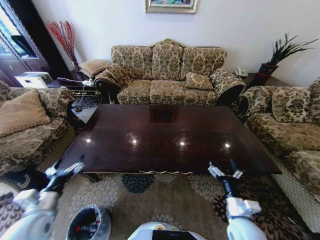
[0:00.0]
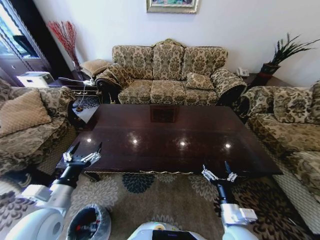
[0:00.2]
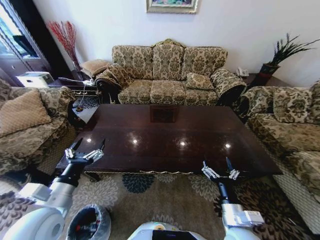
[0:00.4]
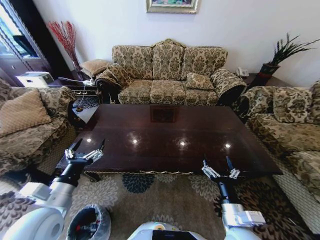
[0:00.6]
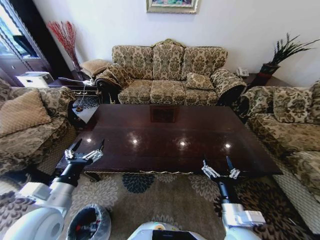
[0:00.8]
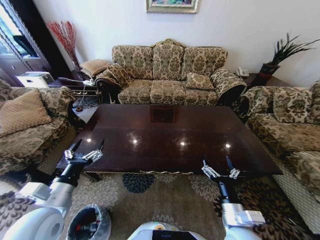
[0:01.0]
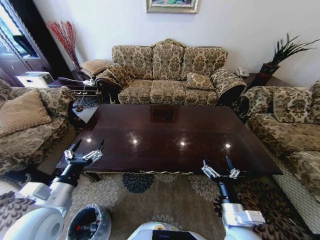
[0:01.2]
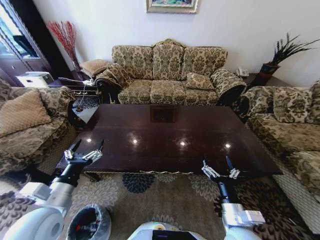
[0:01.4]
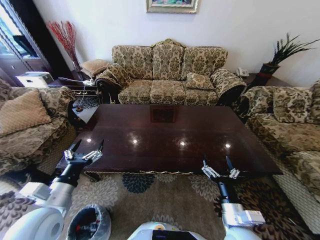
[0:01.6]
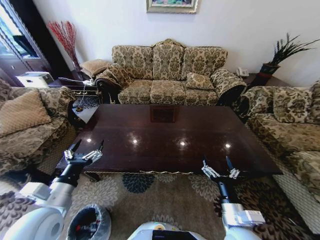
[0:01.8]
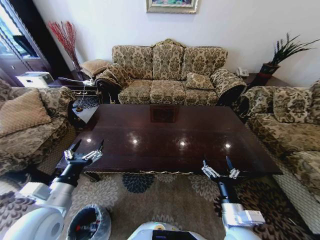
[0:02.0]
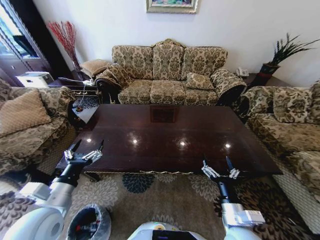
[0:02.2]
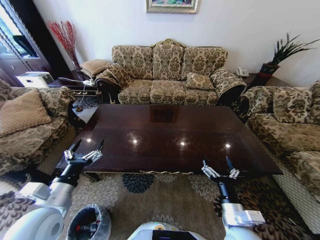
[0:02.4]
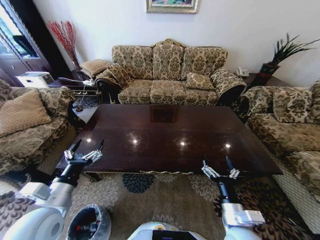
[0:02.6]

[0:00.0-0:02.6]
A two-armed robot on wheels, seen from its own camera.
Task of the whole recording: Move to the front of the table and place the trash on the table into the trash bin.
0:00.0 to 0:01.2: The right gripper moves approximately 5 cm, while the left gripper shifts approximately 10 cm to the right and upward.
0:01.2 to 0:02.6: The two grippers keep their place.

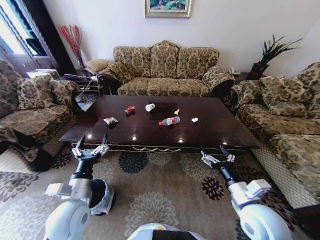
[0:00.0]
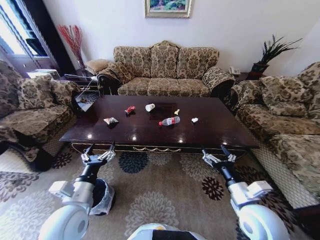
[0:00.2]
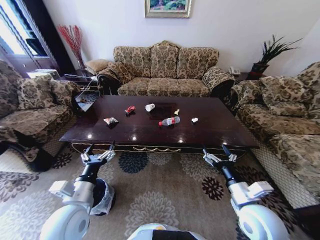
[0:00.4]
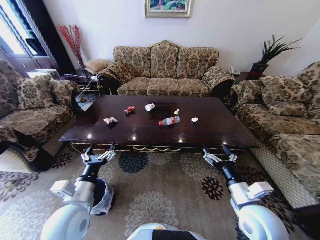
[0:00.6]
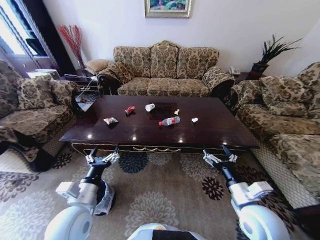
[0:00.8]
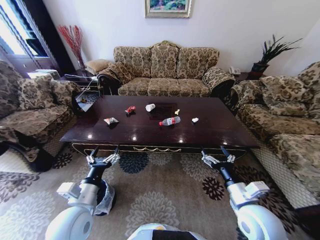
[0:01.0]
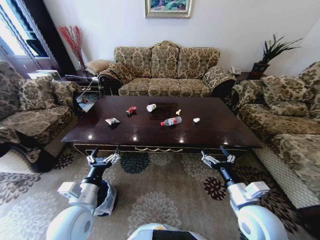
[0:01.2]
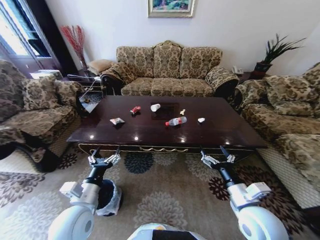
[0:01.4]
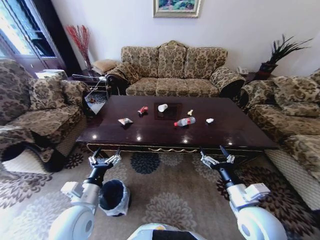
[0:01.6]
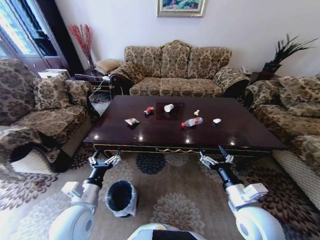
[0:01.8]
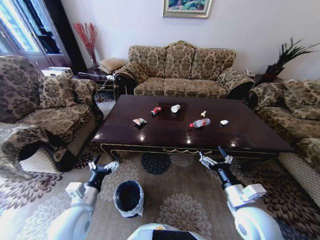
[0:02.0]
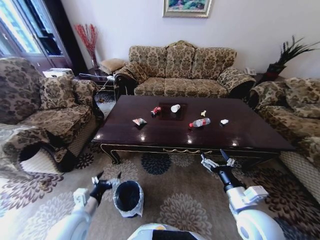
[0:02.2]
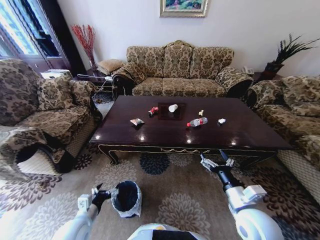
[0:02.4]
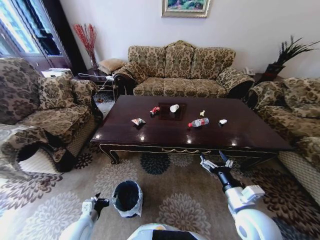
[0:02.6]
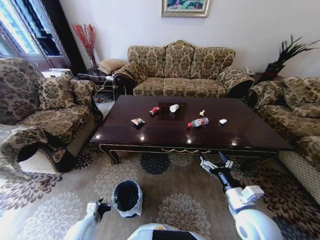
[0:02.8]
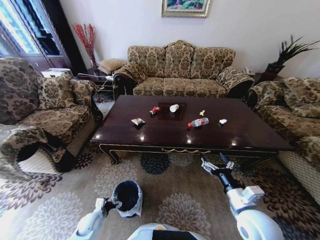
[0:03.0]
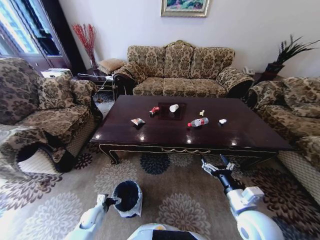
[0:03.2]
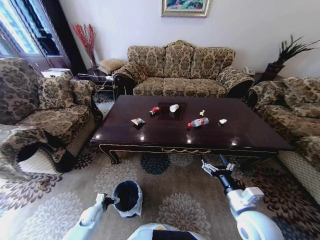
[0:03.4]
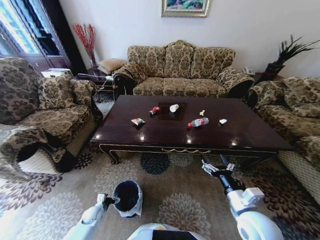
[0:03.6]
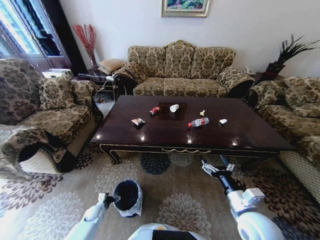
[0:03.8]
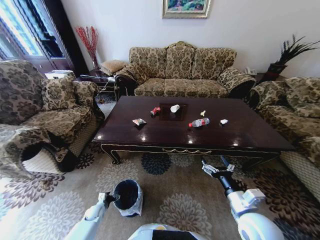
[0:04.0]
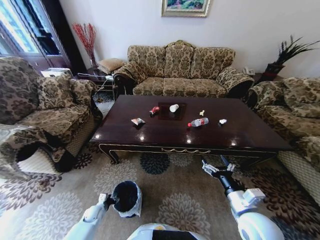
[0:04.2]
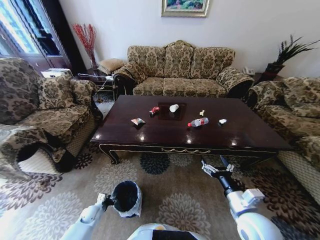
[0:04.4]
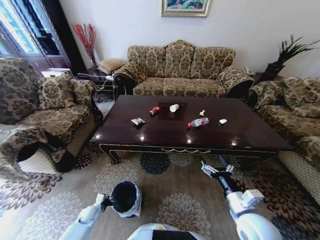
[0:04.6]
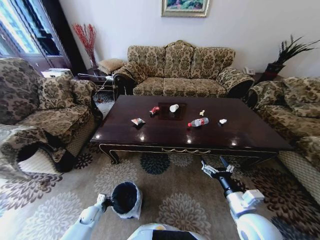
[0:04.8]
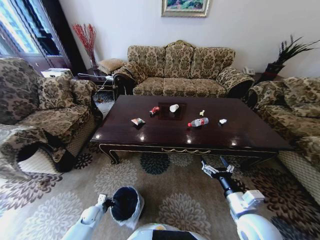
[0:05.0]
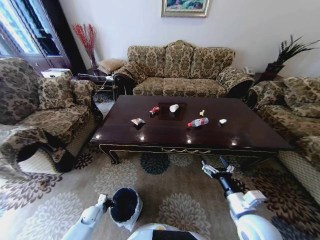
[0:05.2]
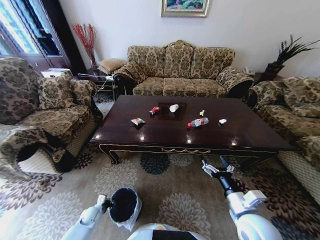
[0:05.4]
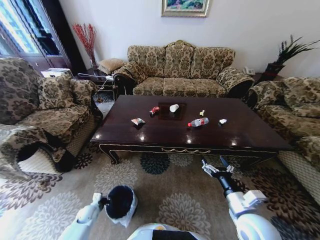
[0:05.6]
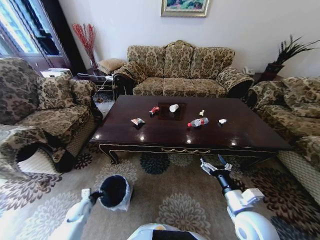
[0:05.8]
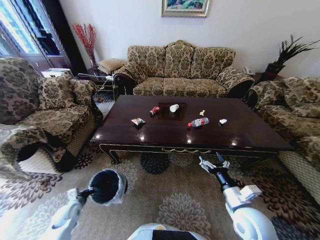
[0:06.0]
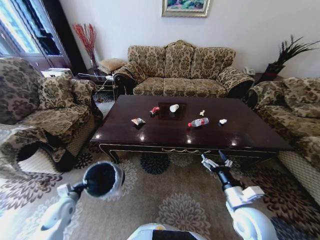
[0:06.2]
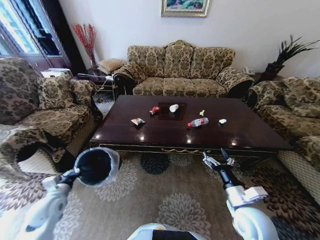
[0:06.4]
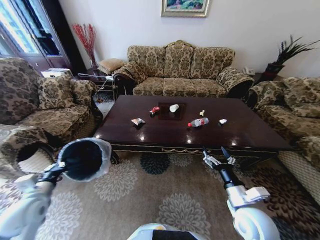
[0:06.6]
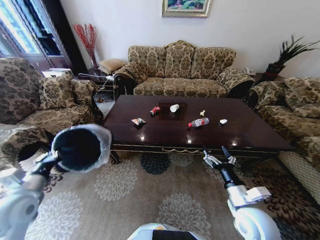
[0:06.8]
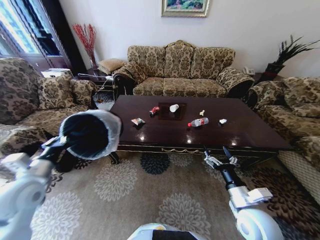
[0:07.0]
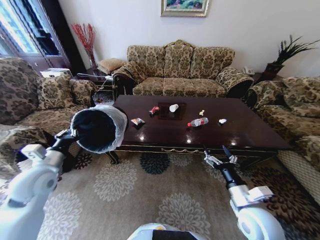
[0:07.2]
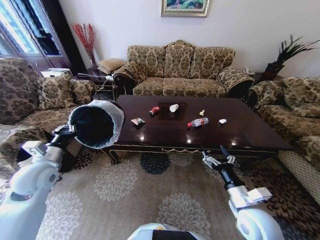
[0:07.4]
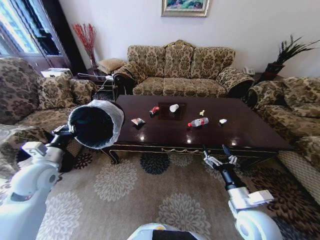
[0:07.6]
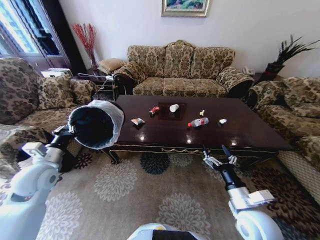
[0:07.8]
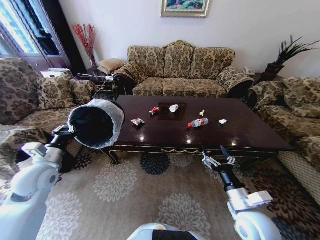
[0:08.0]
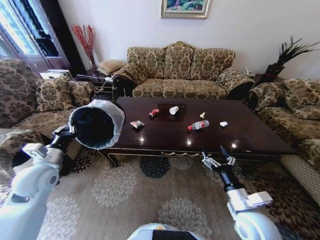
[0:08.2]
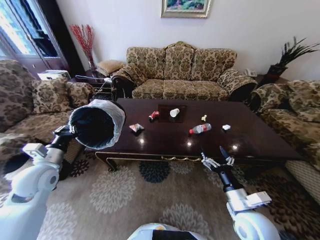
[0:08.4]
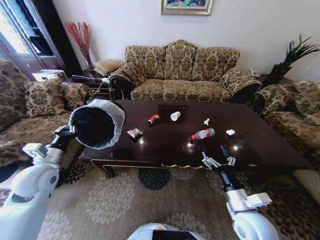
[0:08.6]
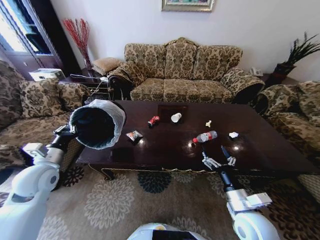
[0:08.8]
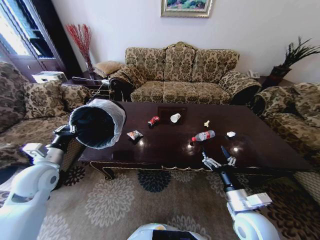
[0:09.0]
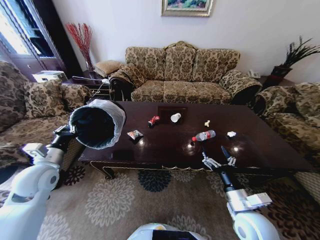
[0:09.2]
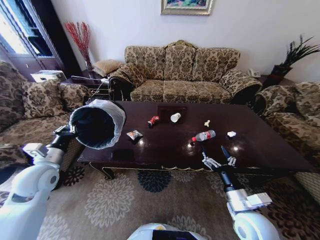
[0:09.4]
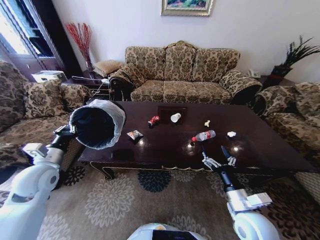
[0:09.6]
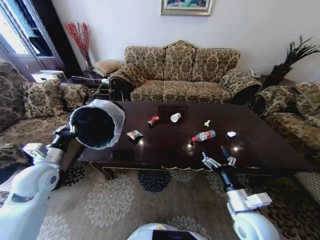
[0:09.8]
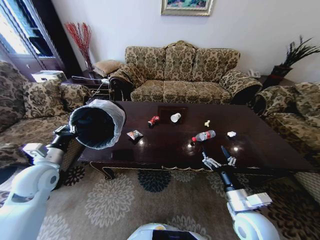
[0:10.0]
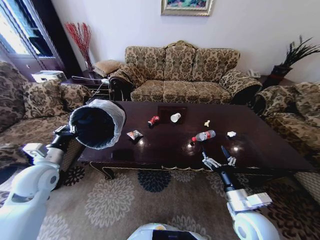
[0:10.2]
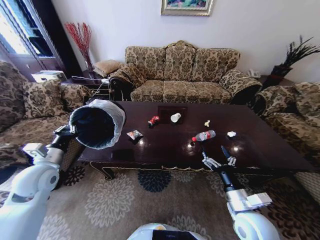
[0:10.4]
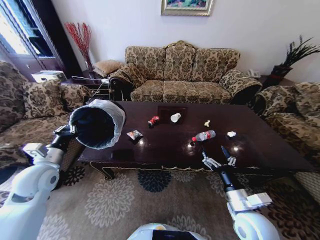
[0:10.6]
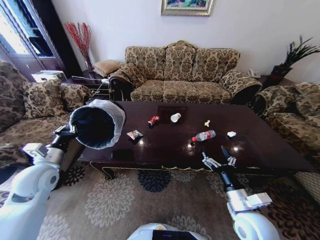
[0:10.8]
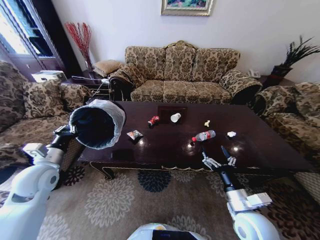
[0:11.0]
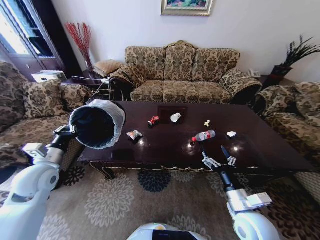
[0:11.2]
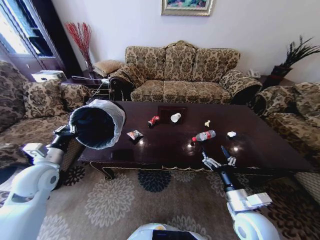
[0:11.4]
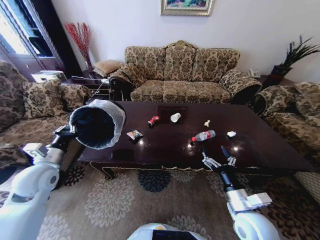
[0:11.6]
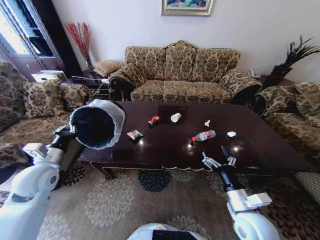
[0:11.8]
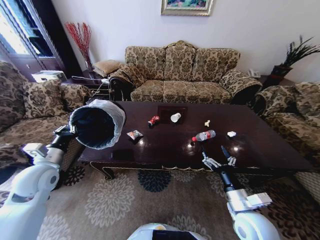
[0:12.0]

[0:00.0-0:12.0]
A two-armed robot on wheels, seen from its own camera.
Task of the whole recording: Move to the front of the table and place the trash on the table into the trash bin.
0:01.6 to 0:03.0: The left gripper travels downward by about 25 cm.
0:03.0 to 0:04.4: The left gripper travels downward by about 5 cm, and closes up.
0:04.4 to 0:06.0: The left gripper goes some 10 cm upward and to the left, and closes up.
0:06.0 to 0:07.6: The left gripper is displaced upward by roughly 30 cm.
0:09.0 to 0:12.0: Neither gripper changes place.

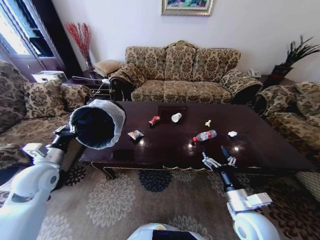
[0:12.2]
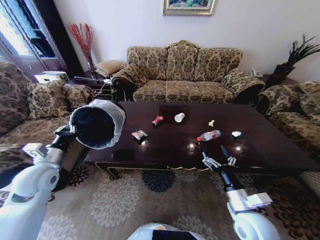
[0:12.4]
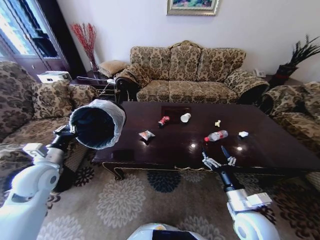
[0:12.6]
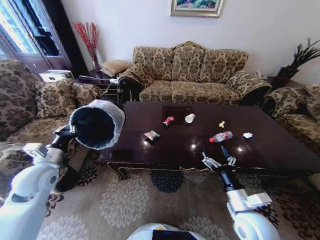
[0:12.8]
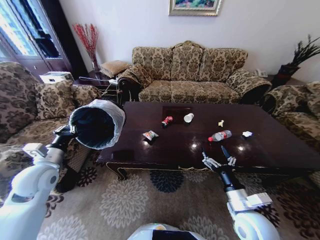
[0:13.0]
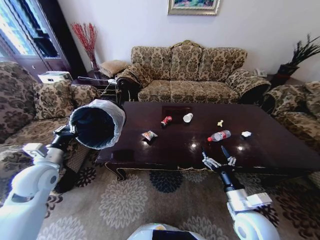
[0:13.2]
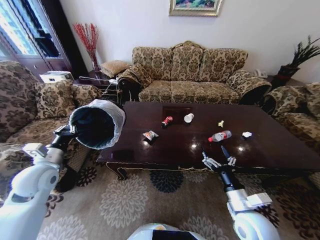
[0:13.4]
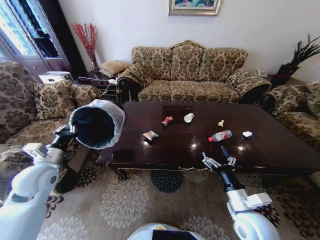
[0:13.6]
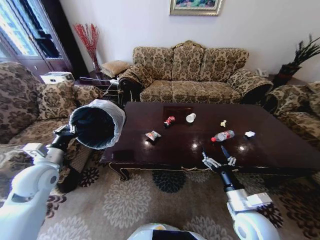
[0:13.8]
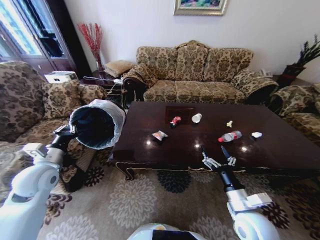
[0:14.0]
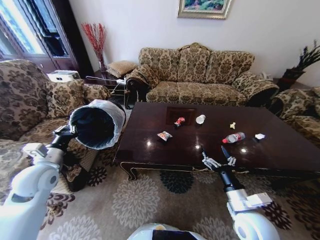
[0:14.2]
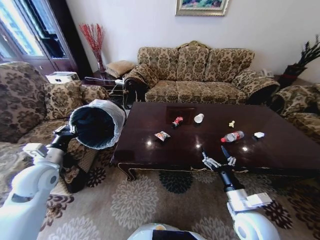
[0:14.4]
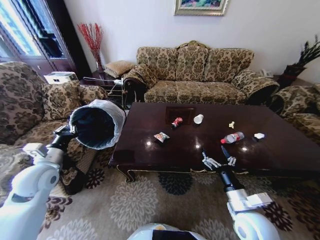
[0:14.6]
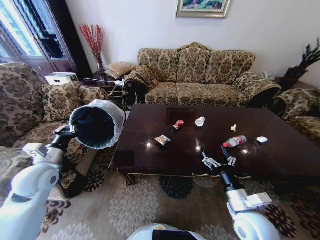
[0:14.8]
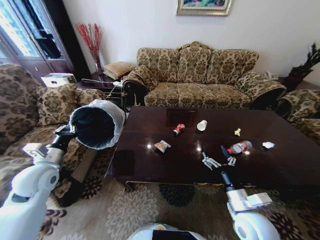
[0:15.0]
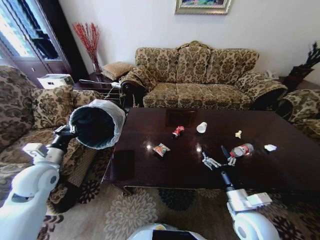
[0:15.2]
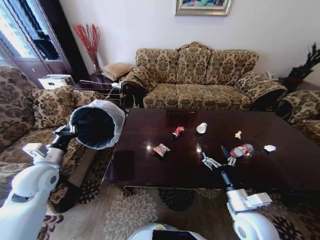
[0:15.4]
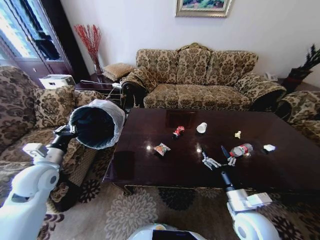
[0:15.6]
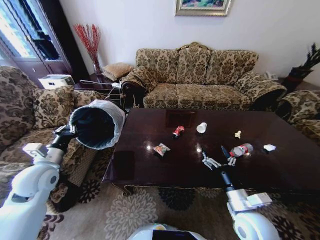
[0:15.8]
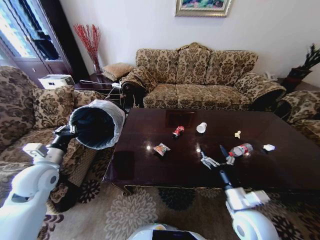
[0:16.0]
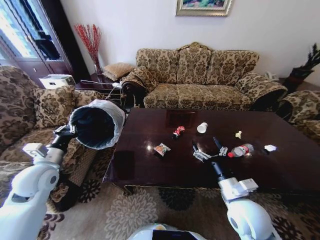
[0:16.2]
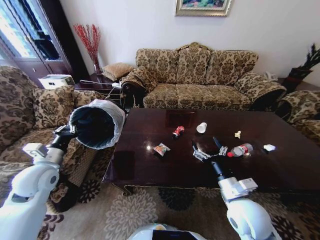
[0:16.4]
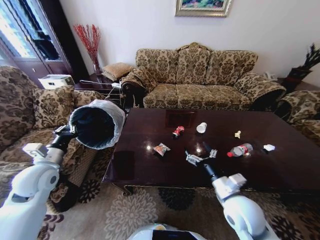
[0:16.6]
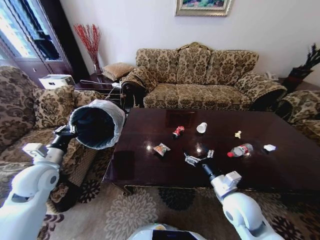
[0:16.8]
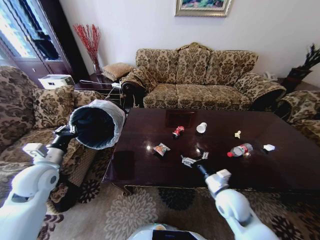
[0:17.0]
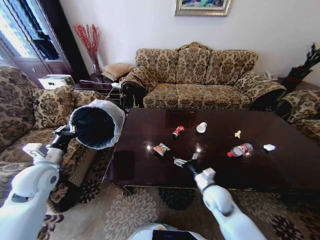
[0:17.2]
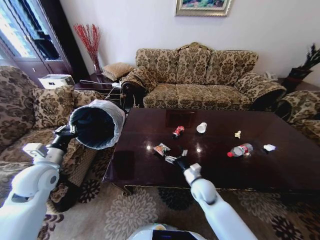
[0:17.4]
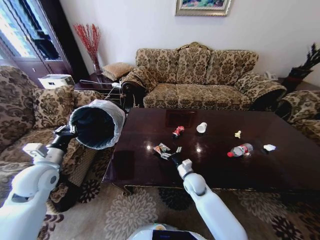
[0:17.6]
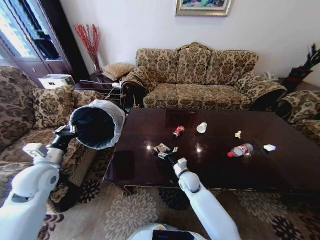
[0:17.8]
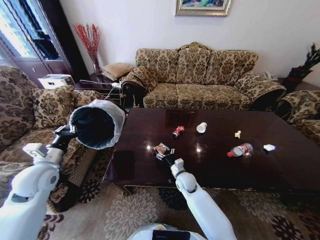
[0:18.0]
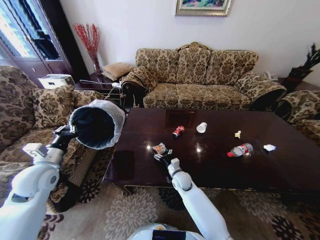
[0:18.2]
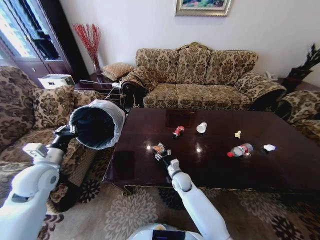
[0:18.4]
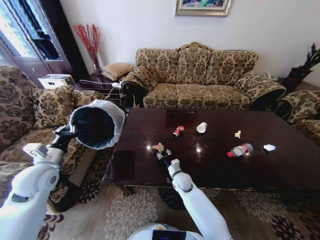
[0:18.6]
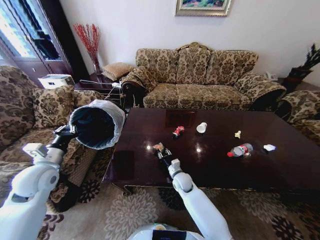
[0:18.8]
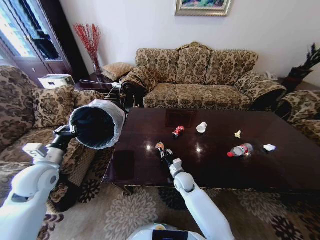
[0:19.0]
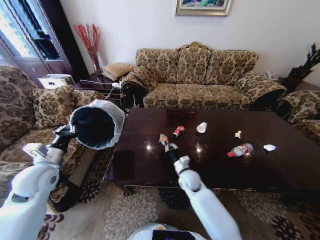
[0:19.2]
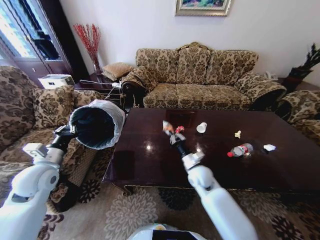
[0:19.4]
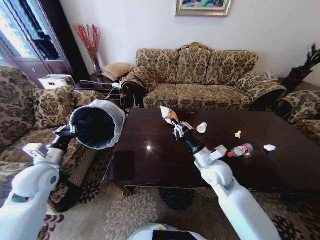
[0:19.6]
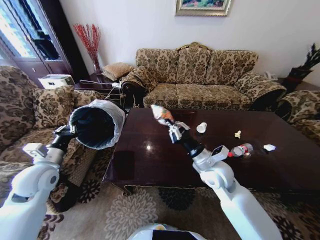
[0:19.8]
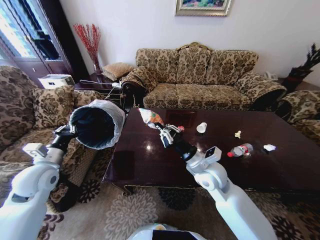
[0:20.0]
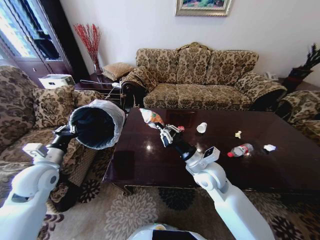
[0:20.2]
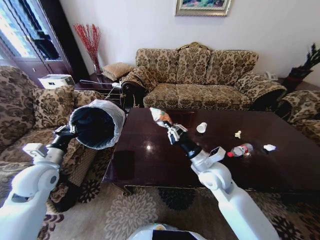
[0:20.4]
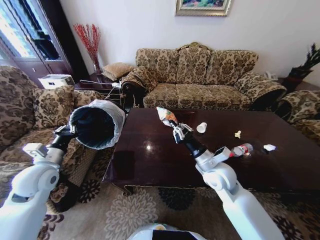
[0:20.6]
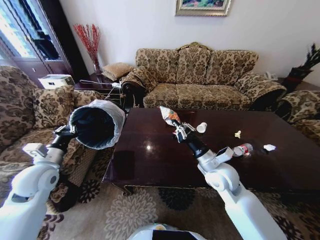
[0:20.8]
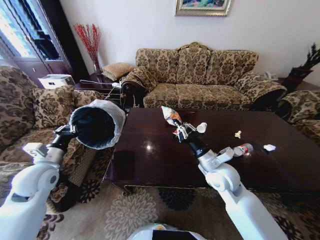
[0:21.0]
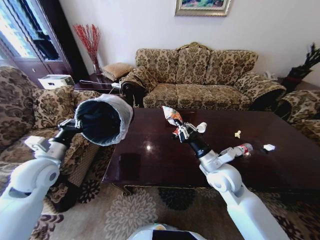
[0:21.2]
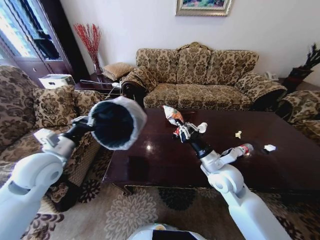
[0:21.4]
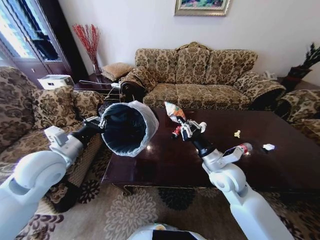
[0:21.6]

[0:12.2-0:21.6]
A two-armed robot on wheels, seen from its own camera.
Task of the whole recording: Move to the front of the table and place the trash on the table into the trash bin.
0:15.4 to 0:17.0: The right gripper is displaced forward by roughly 5 cm.
0:17.0 to 0:18.4: The right gripper shifts some 25 cm downward, to the left and forward.
0:18.4 to 0:20.0: The right gripper shifts some 20 cm upward, and closes its fingers.
0:20.0 to 0:21.6: The right gripper moves to the right, some 5 cm; the left gripper travels to the right and upward by some 10 cm.
